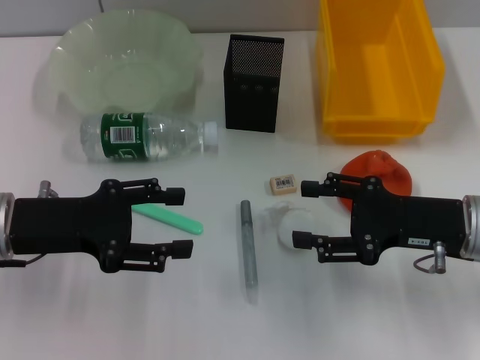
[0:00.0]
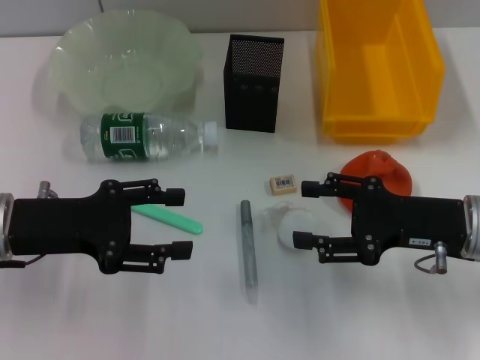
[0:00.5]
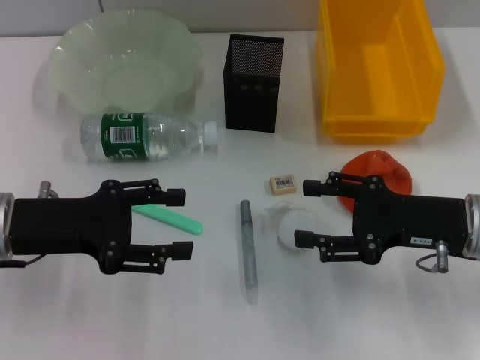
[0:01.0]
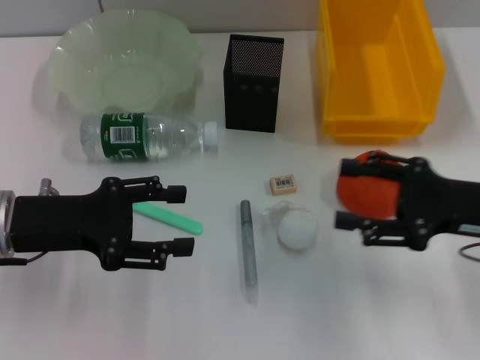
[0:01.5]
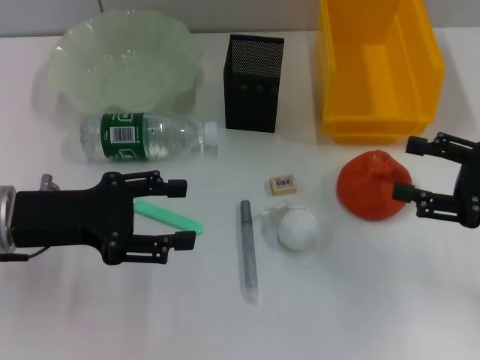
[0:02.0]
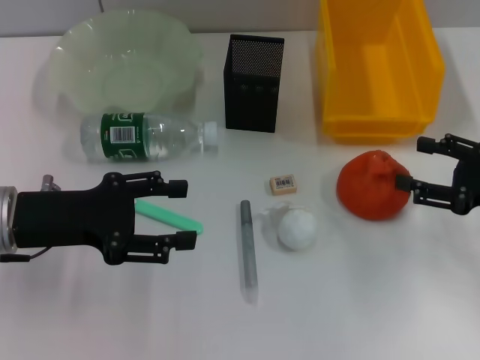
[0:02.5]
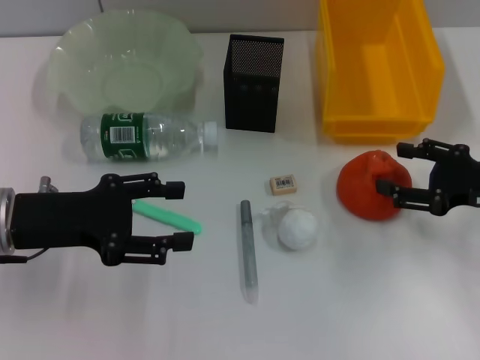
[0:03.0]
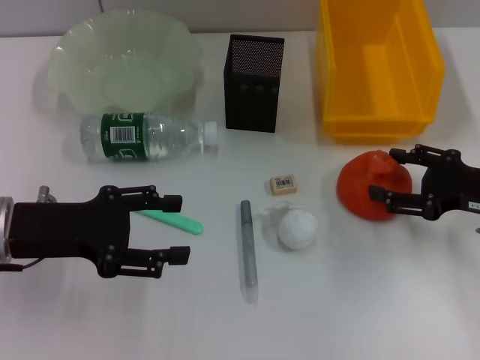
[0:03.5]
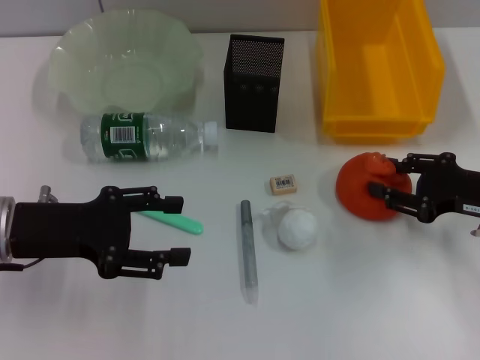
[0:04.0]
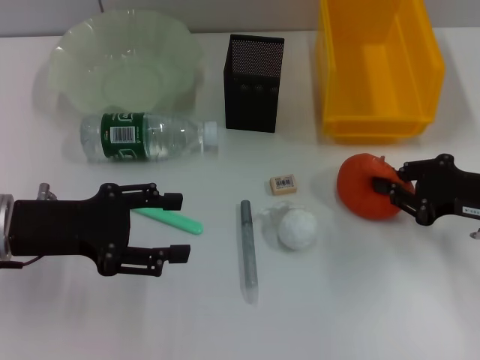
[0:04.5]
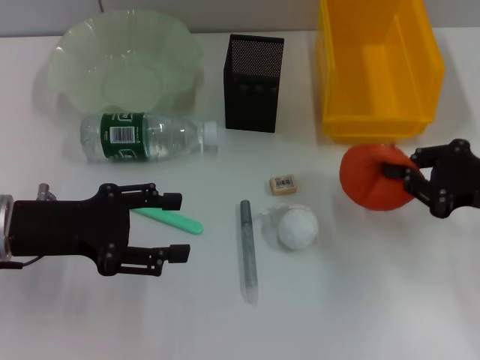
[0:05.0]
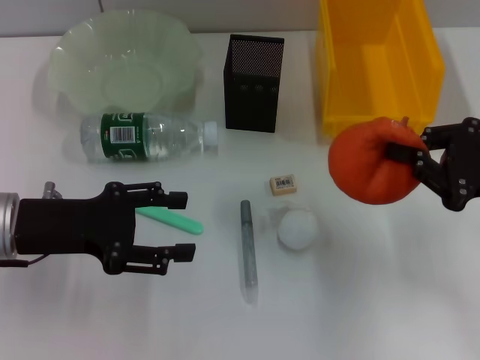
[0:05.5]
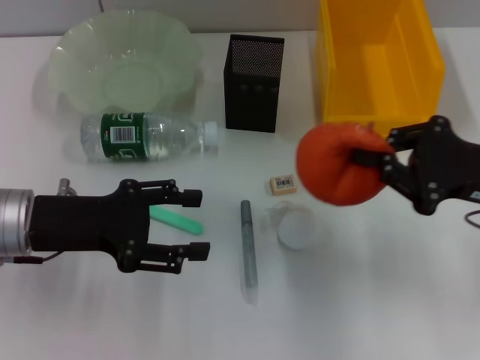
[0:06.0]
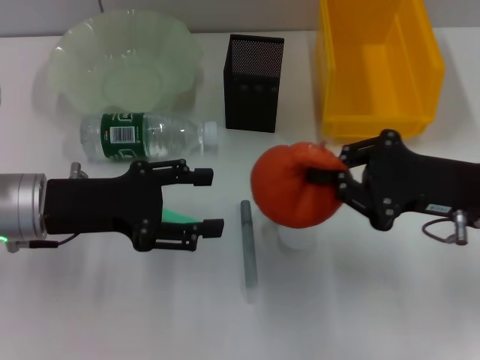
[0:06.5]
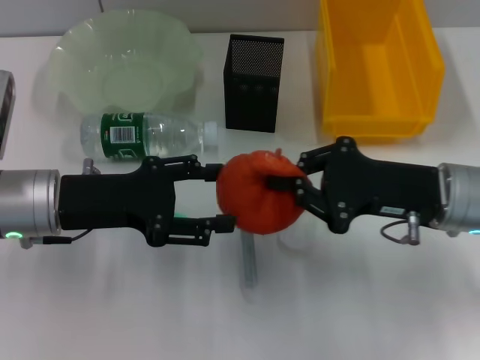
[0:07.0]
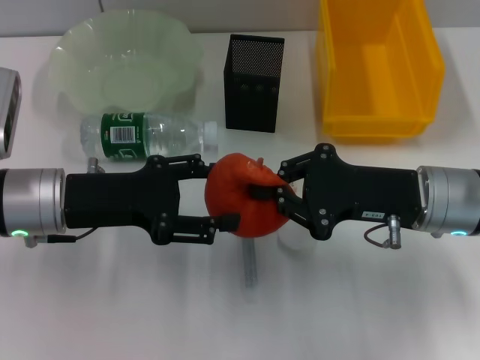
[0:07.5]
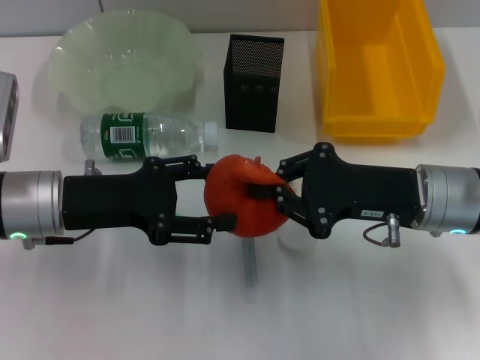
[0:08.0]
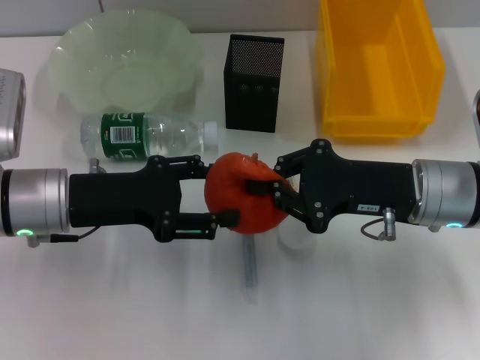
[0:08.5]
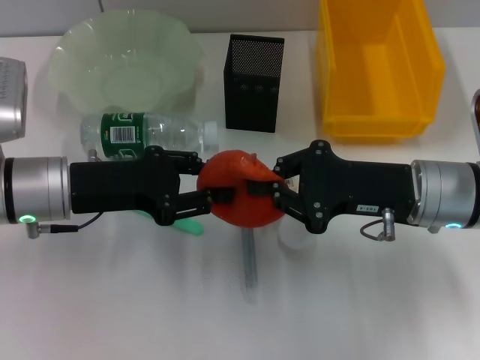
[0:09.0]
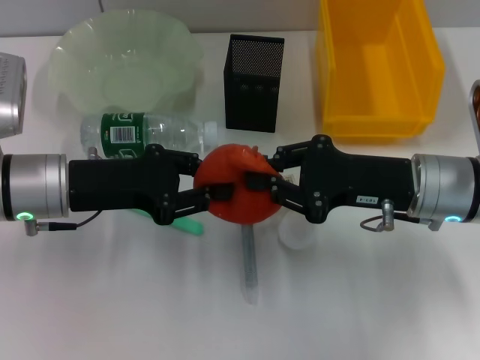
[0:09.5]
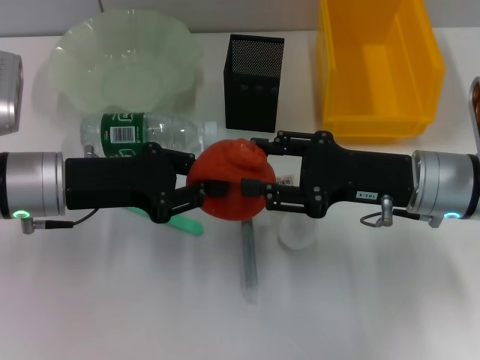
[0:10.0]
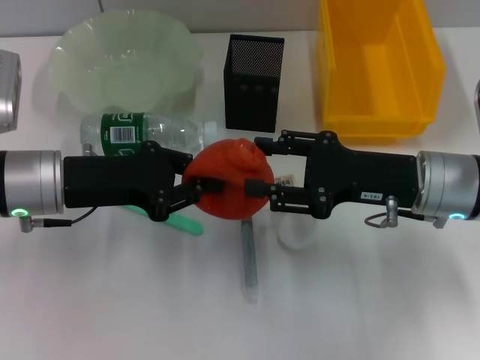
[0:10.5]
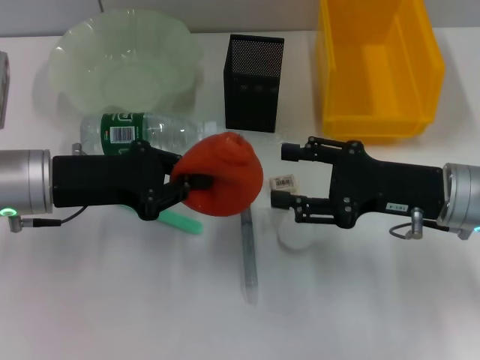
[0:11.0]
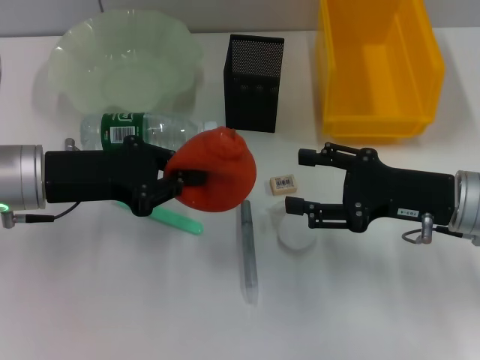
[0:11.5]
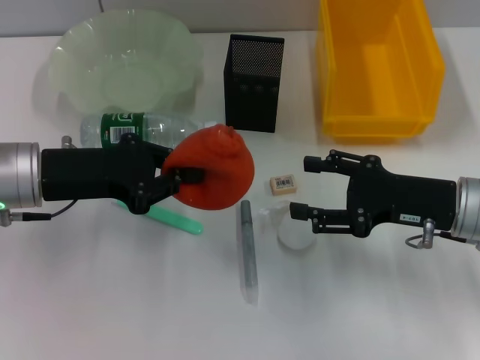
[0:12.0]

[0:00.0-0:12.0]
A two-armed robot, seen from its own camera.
Step, 0:00.0 to 0:04.0: Grab the orange with the right hand.
Step, 0:05.0 to 0:10.5: Pass the orange from the right hand to the left hand.
0:00.0 to 0:02.0: The right gripper is displaced to the right by about 10 cm.
0:02.0 to 0:04.0: The right gripper shifts by roughly 5 cm.
0:04.0 to 0:06.0: The right gripper travels upward by some 5 cm, and closes its fingers.
0:06.0 to 0:08.0: The right gripper shifts roughly 10 cm to the left.
0:08.0 to 0:10.0: The left gripper closes its fingers. Meanwhile the right gripper opens up.
0:10.0 to 0:12.0: The right gripper changes place by some 5 cm, and opens up.

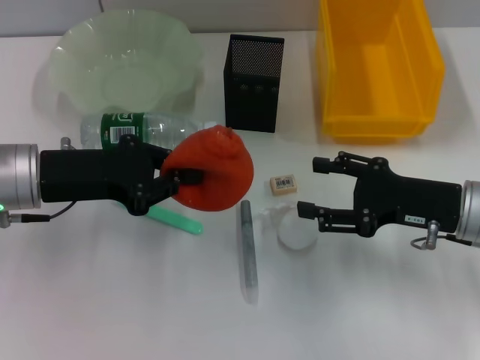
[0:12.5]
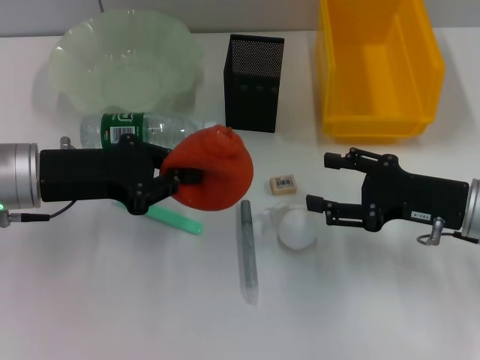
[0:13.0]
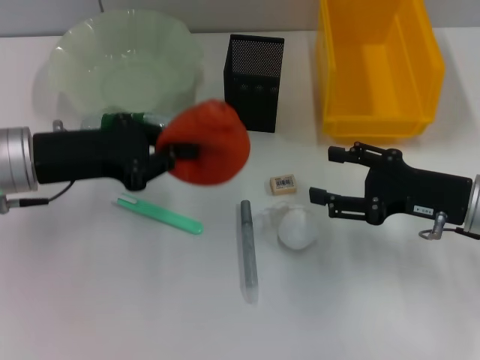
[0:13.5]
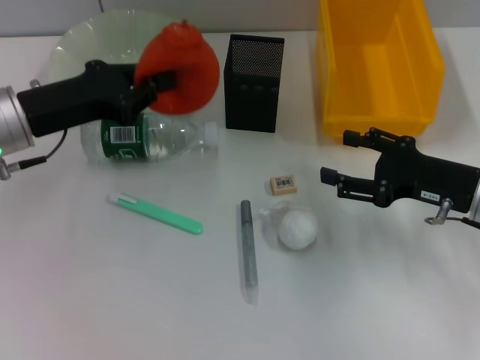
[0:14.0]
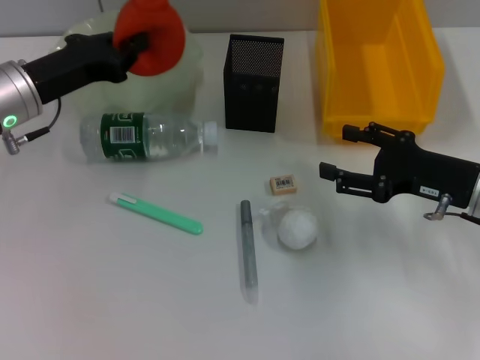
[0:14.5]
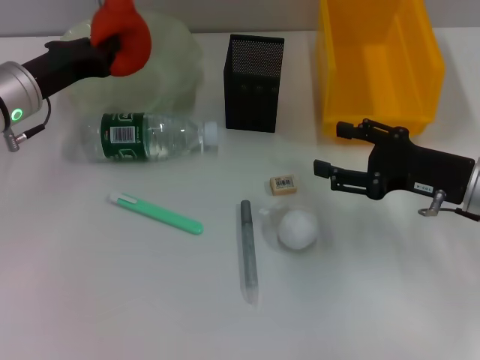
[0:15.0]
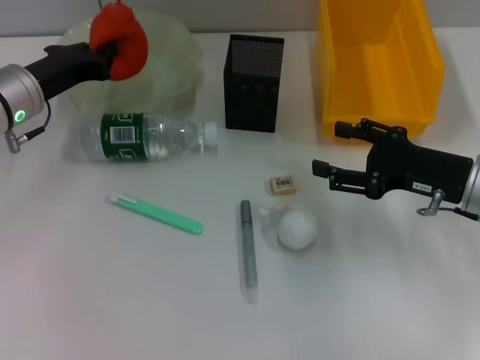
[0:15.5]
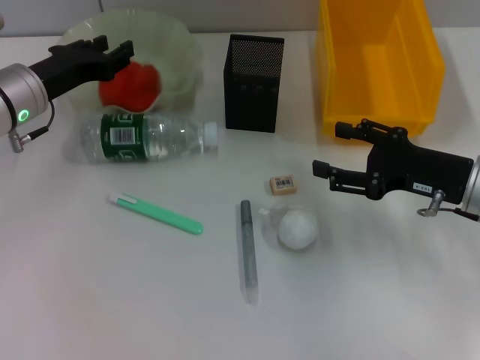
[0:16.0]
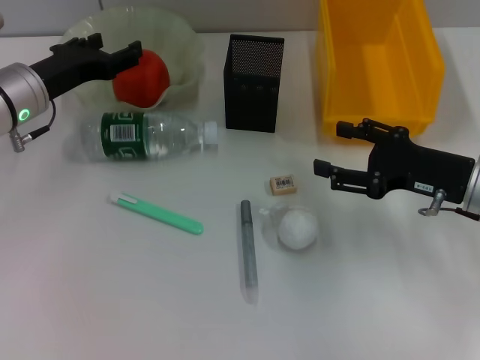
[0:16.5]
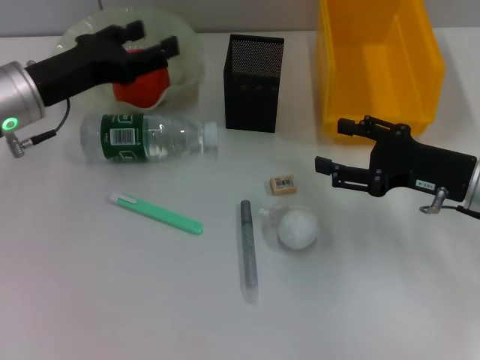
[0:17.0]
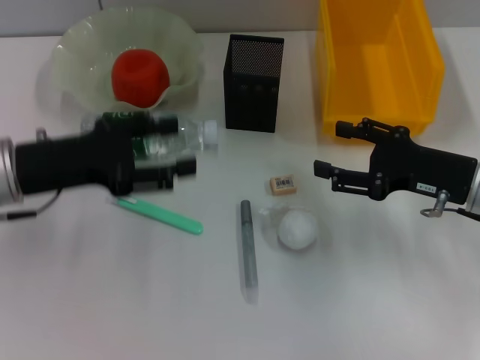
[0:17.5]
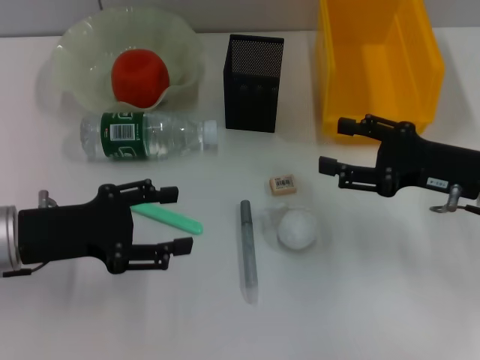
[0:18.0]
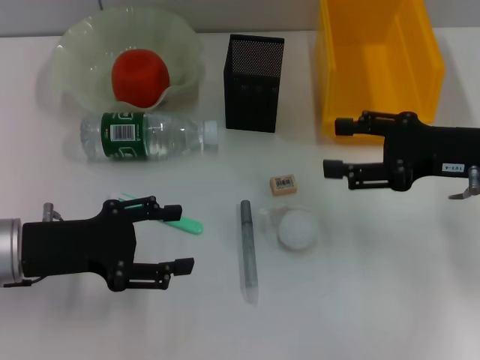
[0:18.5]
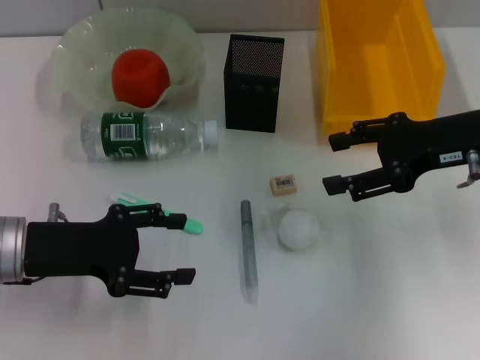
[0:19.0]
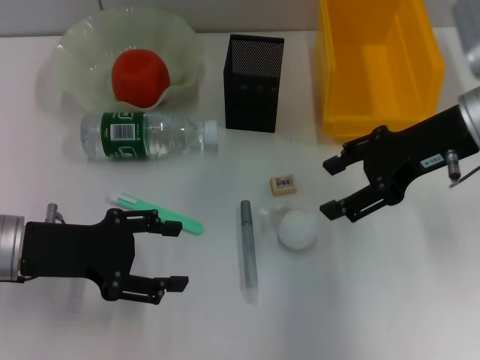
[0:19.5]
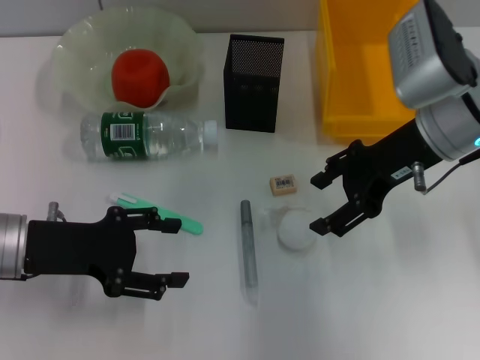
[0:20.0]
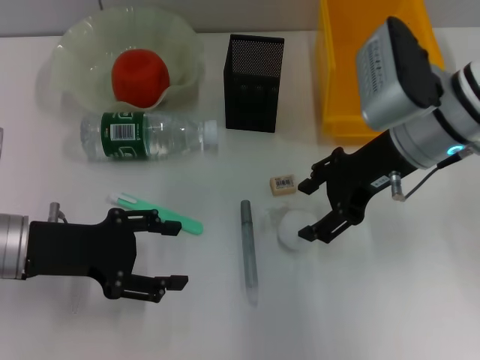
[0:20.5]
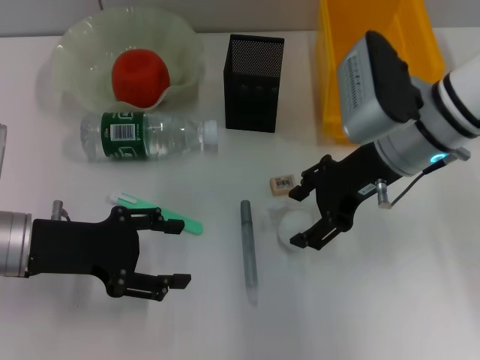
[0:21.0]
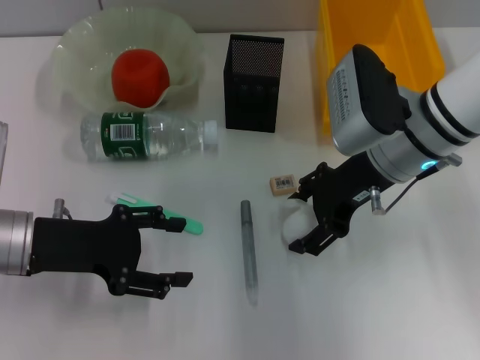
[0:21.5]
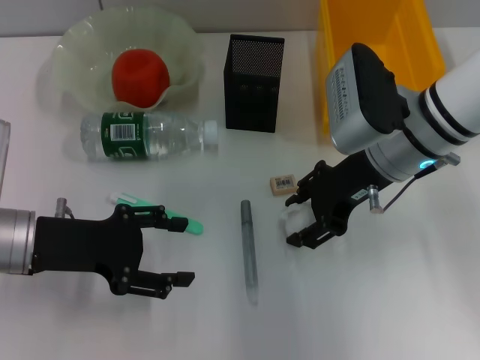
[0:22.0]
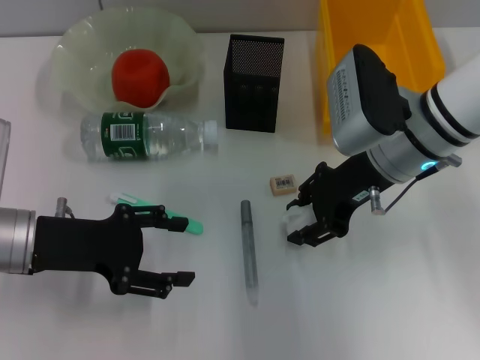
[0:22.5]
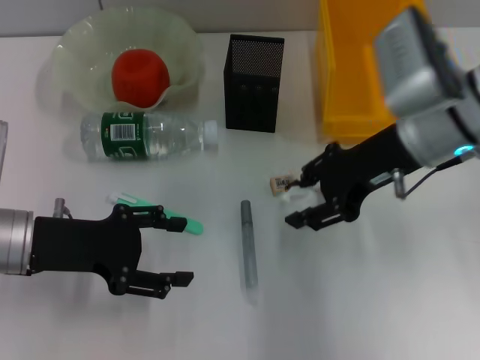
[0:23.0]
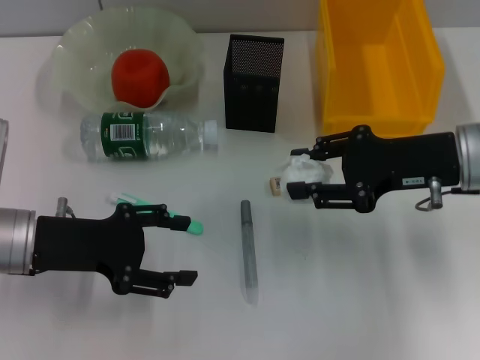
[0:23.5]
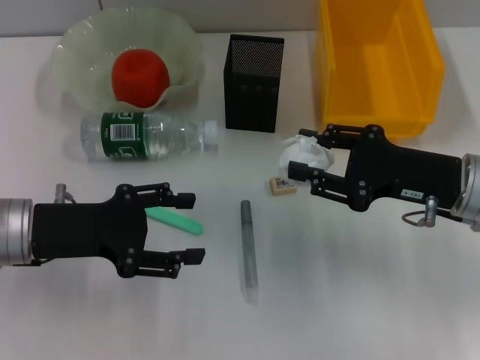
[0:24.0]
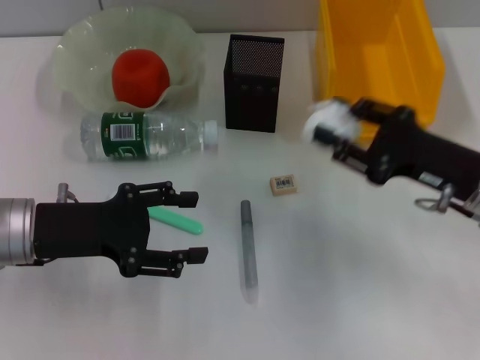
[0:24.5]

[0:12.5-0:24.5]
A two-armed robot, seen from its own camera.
Step, 0:12.5 to 0:16.0: Place the orange into the fruit bowl with the left hand.
Step, 0:16.5 to 0:22.5: Grab the paper ball with the right hand.
0:12.5 to 0:14.5: The left gripper is displaced forward by some 5 cm.
0:14.5 to 0:16.5: The left gripper opens its fingers.
0:16.5 to 0:18.5: The right gripper heads upward, covering some 5 cm, while the left gripper moves backward, approximately 15 cm.
0:18.5 to 0:20.5: The right gripper goes roughly 10 cm to the left.
0:20.5 to 0:22.5: The right gripper closes up.
0:22.5 to 0:24.5: The right gripper heads to the right and backward, covering approximately 10 cm.

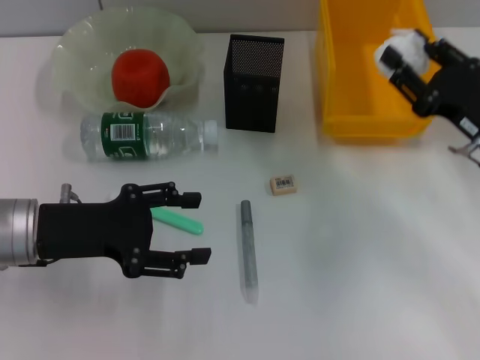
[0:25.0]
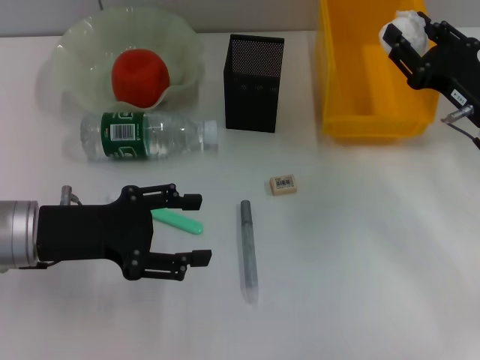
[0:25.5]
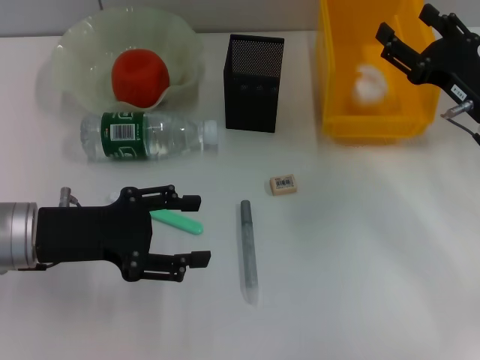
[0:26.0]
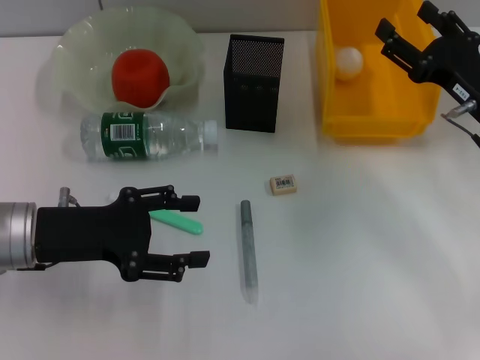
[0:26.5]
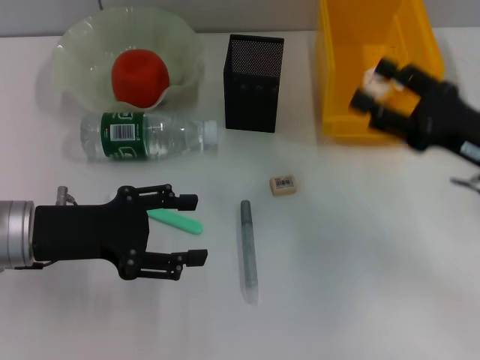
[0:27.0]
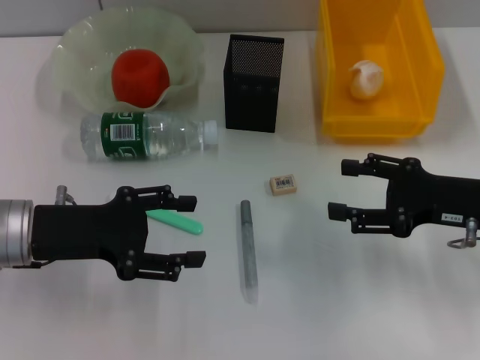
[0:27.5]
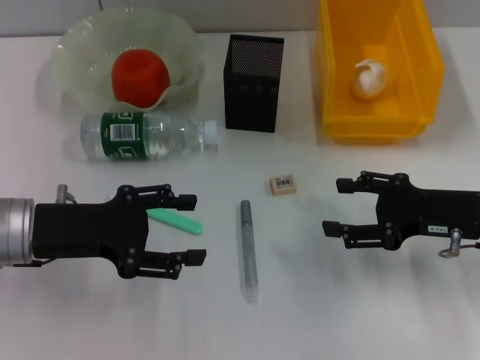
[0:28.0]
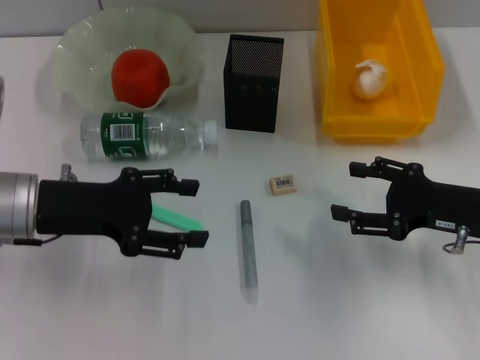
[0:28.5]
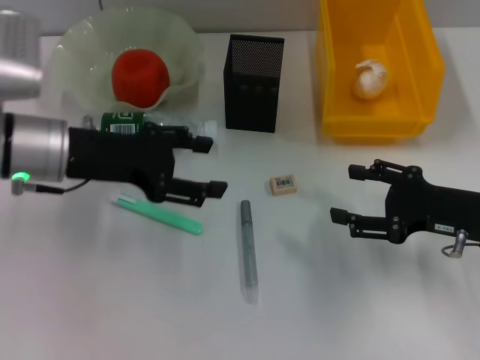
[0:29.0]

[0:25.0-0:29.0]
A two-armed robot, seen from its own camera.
Step, 0:25.0 to 0:28.0: Place the paper ball into the trash can with the right hand.
0:25.0 to 0:27.0: The right gripper opens up.
0:27.0 to 0:29.0: The left gripper goes some 5 cm forward.
